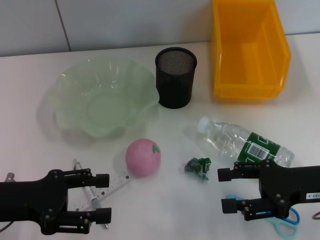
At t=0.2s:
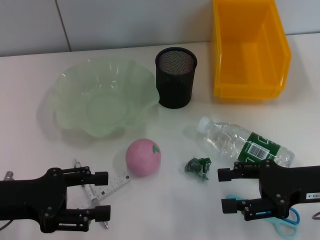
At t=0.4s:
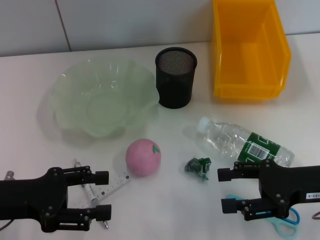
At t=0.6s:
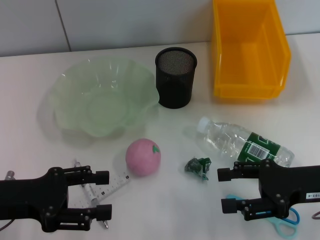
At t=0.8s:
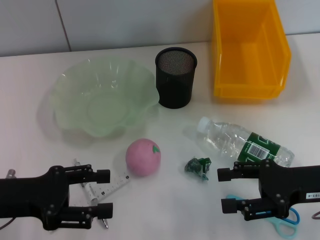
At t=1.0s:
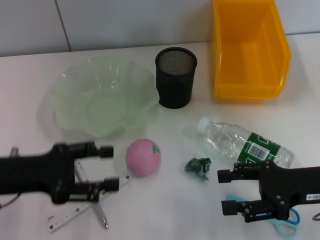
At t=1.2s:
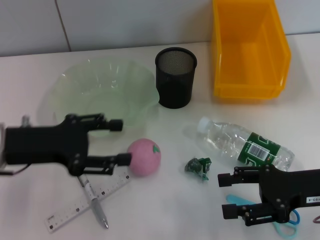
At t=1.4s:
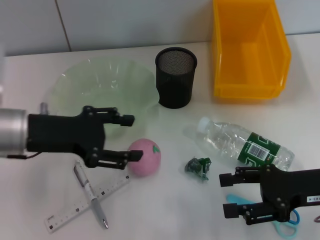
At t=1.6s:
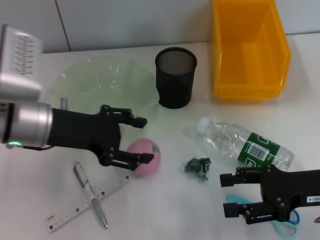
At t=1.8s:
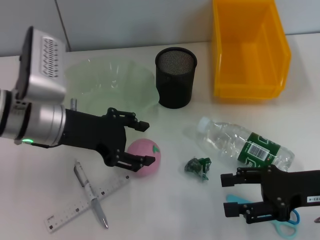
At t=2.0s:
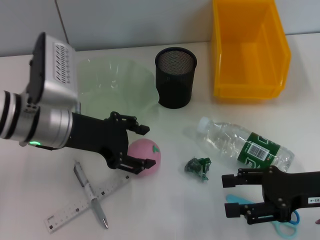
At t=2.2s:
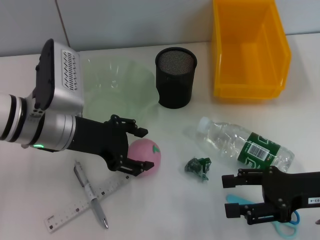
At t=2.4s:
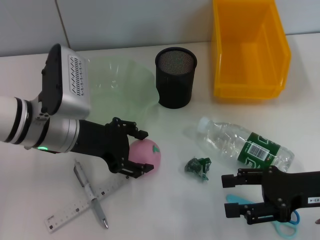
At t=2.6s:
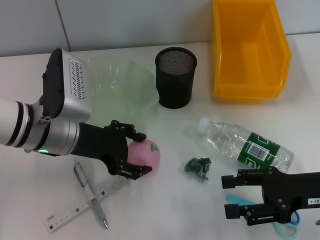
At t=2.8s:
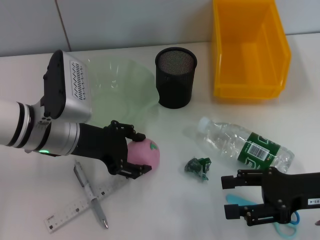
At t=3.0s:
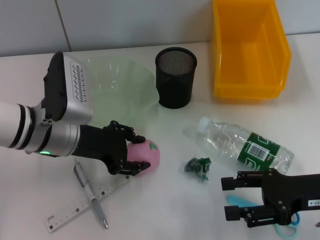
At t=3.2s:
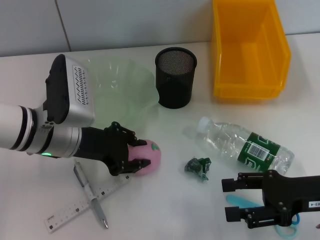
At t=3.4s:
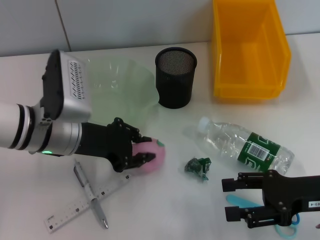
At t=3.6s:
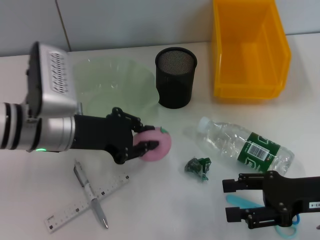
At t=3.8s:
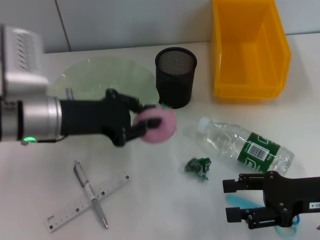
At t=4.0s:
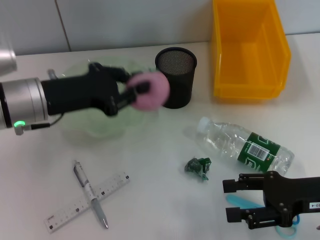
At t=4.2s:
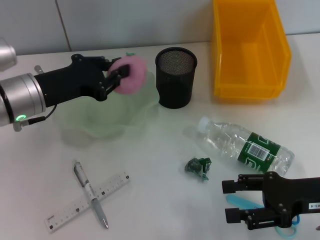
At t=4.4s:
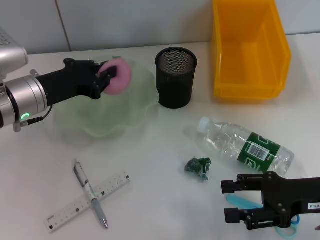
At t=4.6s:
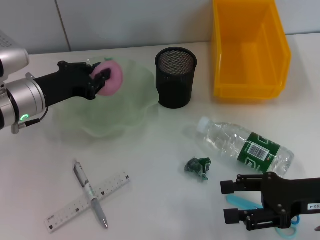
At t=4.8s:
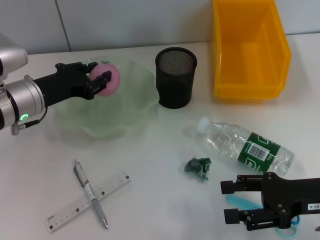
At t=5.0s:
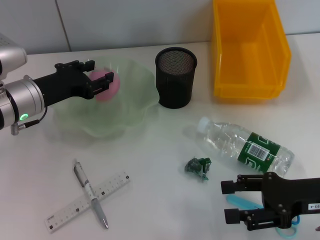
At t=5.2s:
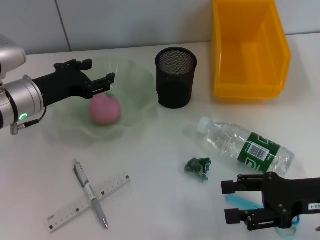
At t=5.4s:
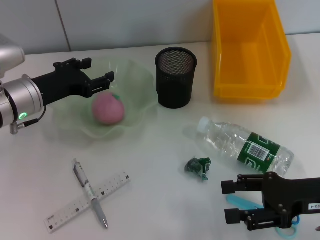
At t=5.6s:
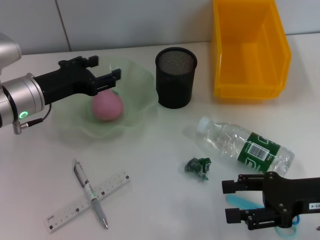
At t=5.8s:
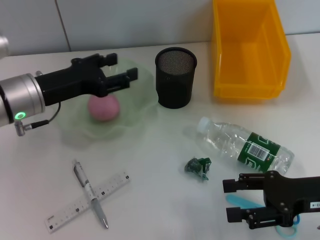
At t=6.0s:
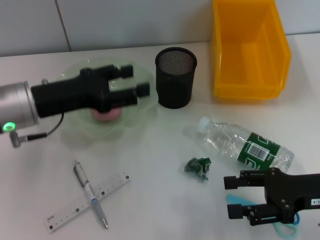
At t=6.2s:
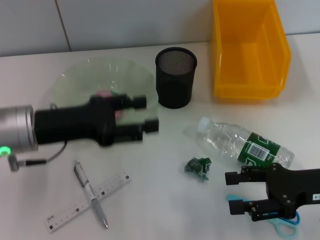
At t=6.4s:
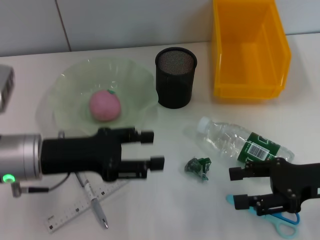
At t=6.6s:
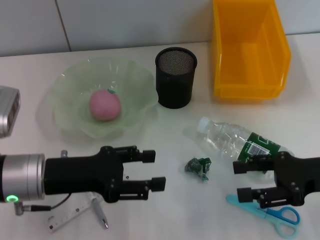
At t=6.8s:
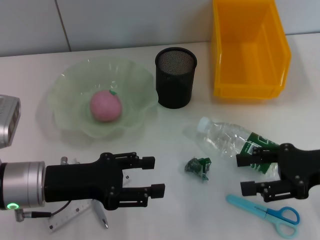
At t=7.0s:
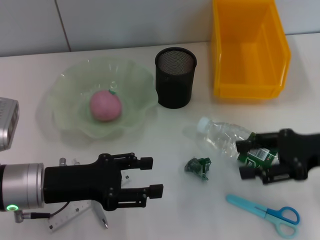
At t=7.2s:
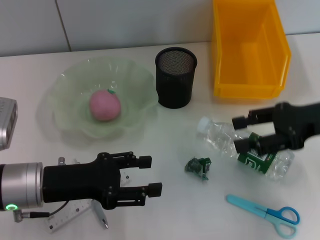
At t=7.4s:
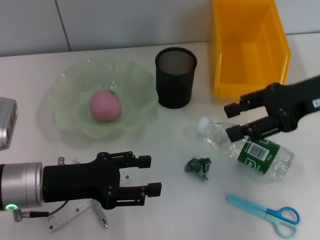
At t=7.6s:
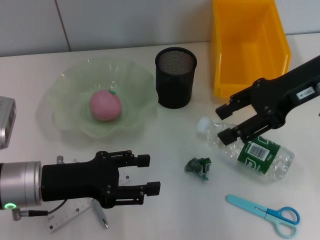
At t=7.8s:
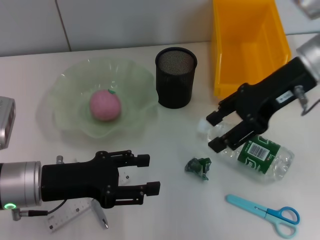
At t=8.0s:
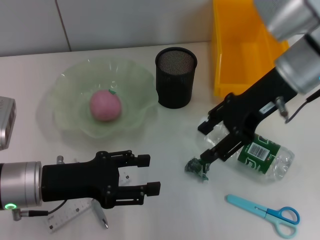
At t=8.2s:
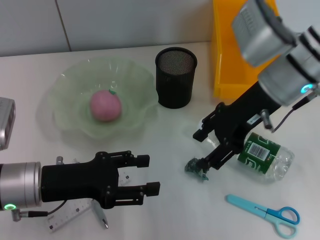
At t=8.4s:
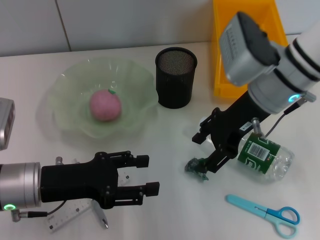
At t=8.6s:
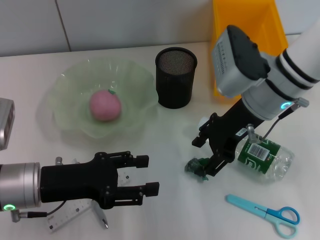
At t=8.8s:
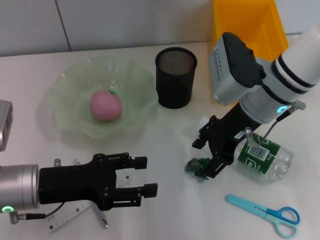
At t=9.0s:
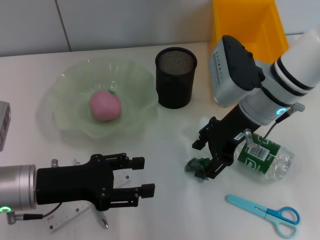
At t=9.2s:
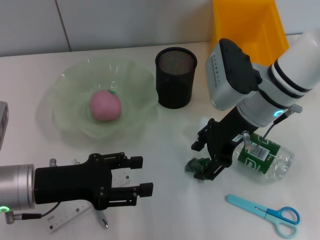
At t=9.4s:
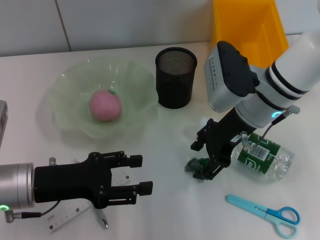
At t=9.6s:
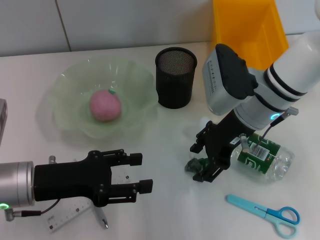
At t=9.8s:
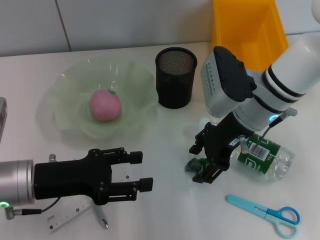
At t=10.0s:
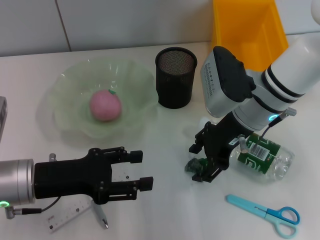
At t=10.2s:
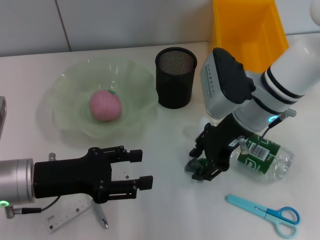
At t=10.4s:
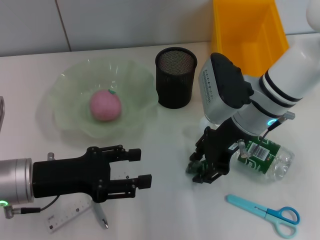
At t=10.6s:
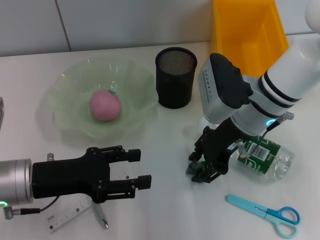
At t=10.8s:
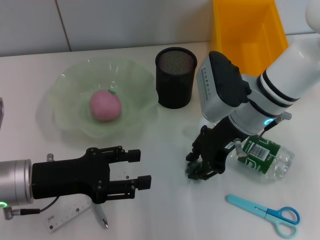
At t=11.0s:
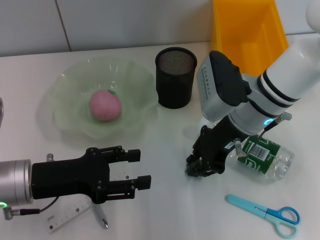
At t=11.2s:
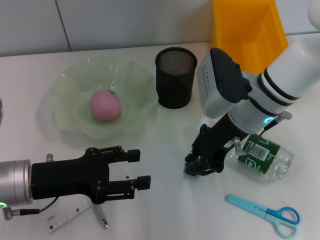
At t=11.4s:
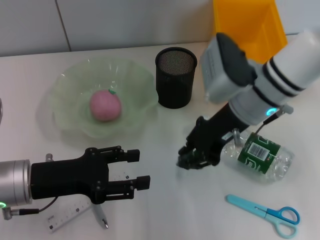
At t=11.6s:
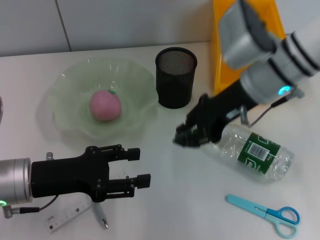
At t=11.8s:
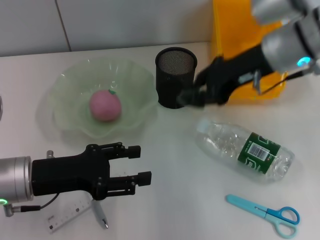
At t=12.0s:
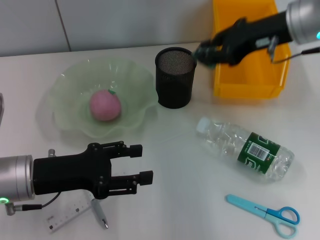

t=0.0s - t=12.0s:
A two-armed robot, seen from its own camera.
Step, t=0.0s - t=3.0s: Grab the peach with the left hand.
Step, t=3.4s - t=5.4s: Place the peach into the fruit bowl with the left hand.
Step, t=5.6s - t=11.0s: Grab the plastic with the right hand.
t=0.0s - t=1.6s: The left gripper heads to the right and forward, covering some 10 cm.
t=1.6s - t=3.0s: The grippers stay close to where they were, moving slightly.
t=3.0s - t=4.4s: The left gripper ends up roughly 5 cm from where it was, and closes.
t=4.4s - t=6.0s: The left gripper opens its fingers.
t=6.0s - t=7.6s: The right gripper is displaced upward and forward by approximately 20 cm, while the left gripper goes about 10 cm backward and downward.
t=7.6s - t=9.0s: The right gripper is displaced to the left and downward by roughly 10 cm.
t=9.0s - t=10.4s: The grippers move only a little.
t=10.4s - t=12.0s: The right gripper moves upward and to the right, roughly 15 cm, and closes its fingers.

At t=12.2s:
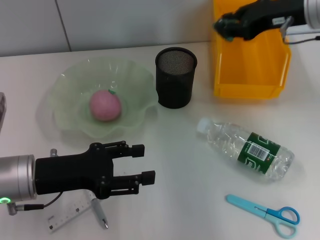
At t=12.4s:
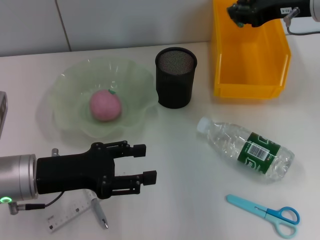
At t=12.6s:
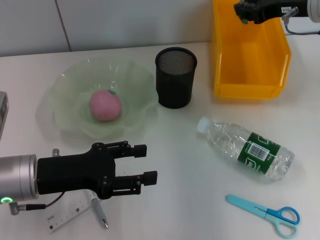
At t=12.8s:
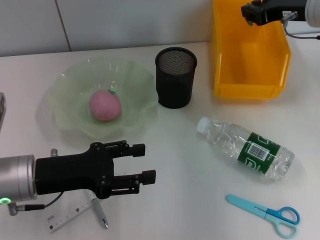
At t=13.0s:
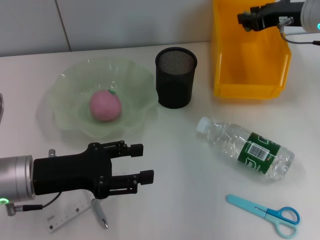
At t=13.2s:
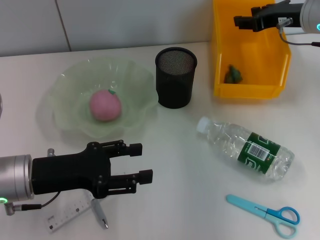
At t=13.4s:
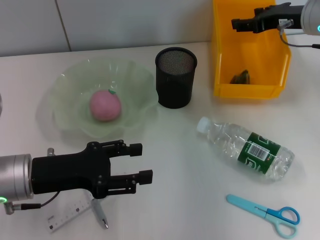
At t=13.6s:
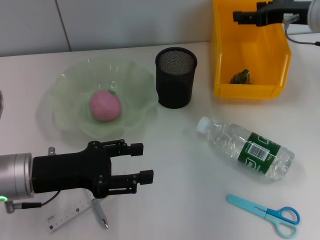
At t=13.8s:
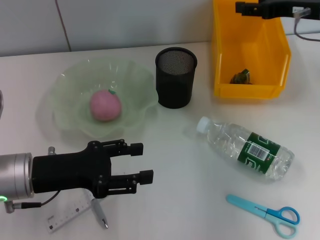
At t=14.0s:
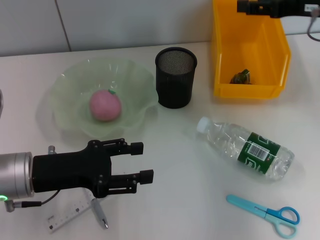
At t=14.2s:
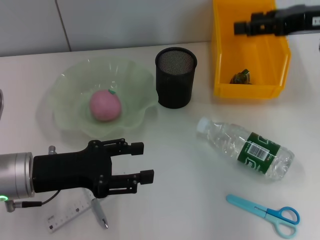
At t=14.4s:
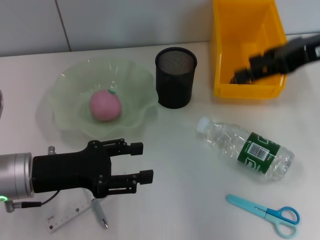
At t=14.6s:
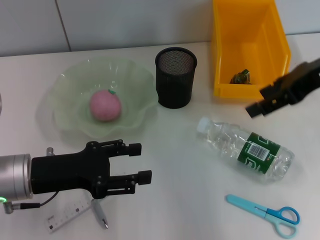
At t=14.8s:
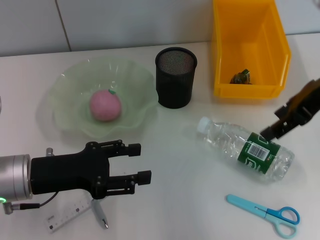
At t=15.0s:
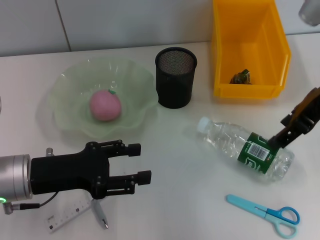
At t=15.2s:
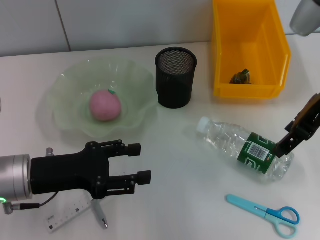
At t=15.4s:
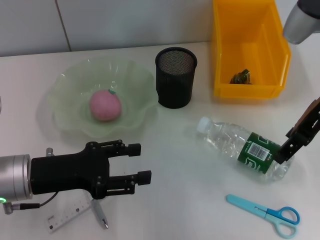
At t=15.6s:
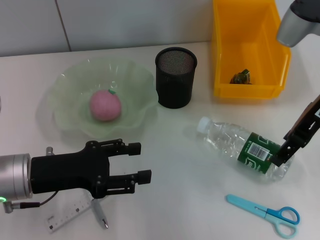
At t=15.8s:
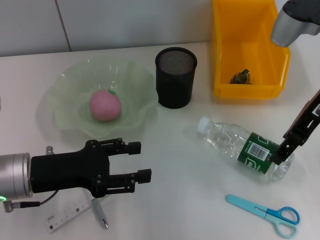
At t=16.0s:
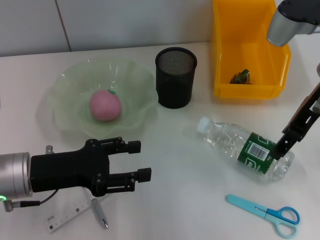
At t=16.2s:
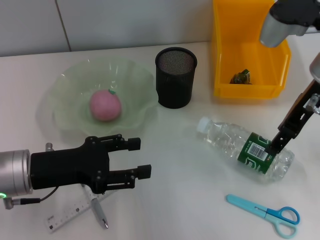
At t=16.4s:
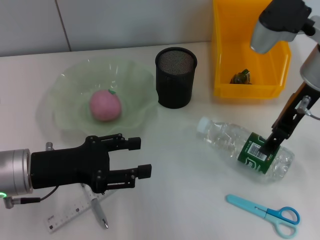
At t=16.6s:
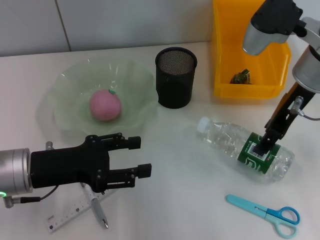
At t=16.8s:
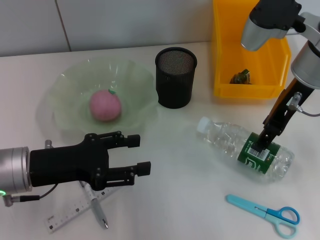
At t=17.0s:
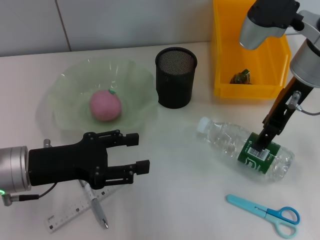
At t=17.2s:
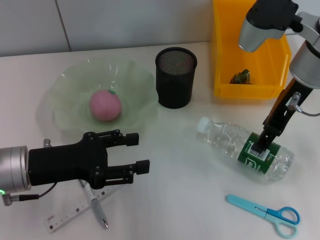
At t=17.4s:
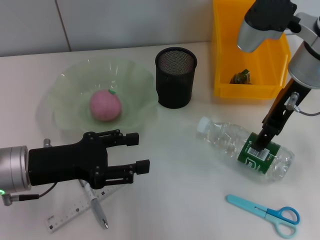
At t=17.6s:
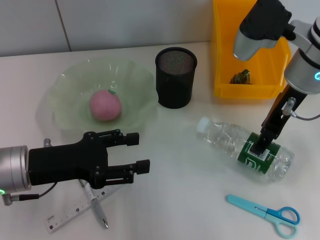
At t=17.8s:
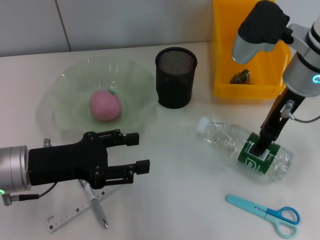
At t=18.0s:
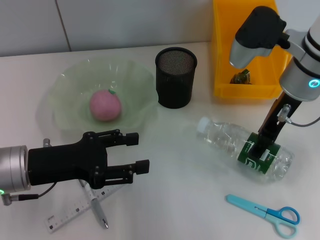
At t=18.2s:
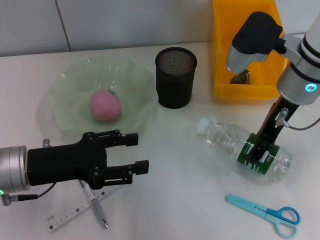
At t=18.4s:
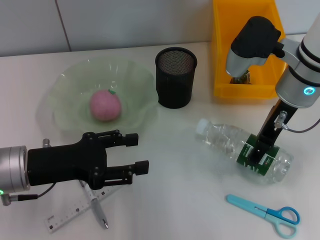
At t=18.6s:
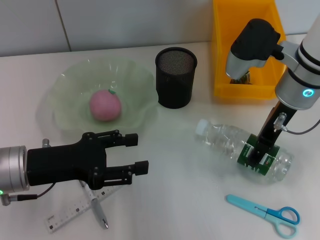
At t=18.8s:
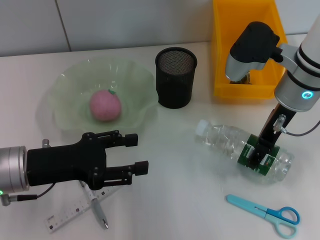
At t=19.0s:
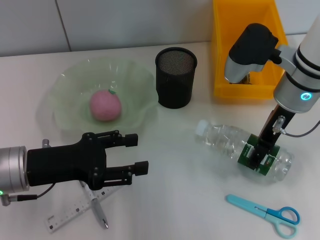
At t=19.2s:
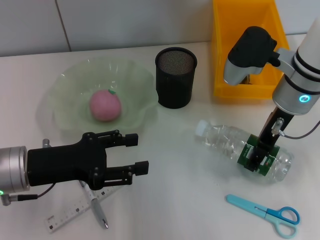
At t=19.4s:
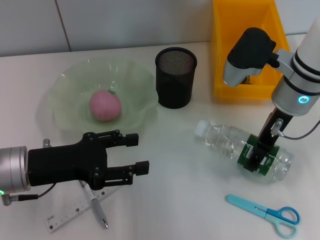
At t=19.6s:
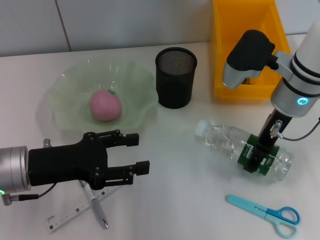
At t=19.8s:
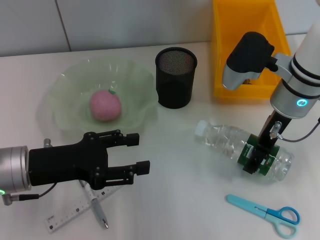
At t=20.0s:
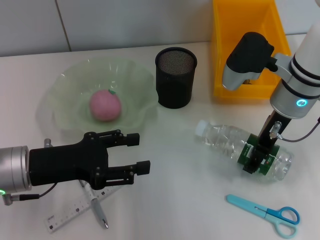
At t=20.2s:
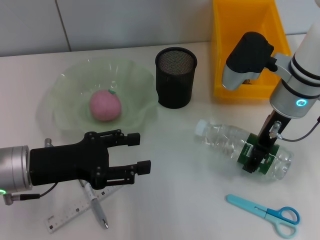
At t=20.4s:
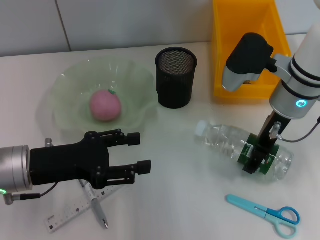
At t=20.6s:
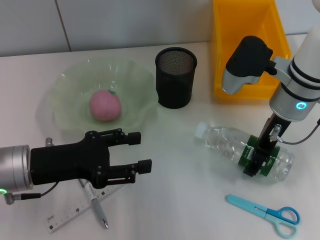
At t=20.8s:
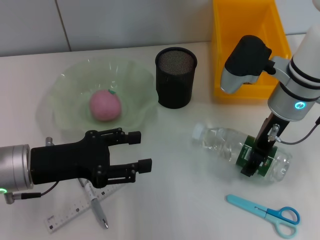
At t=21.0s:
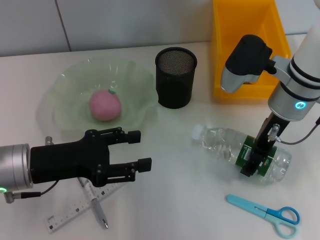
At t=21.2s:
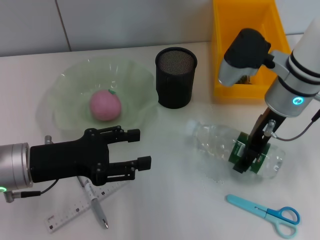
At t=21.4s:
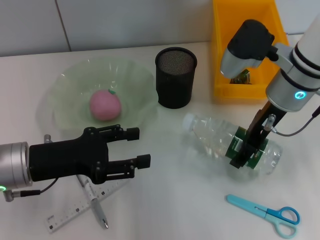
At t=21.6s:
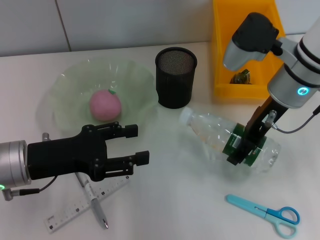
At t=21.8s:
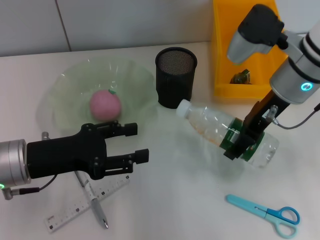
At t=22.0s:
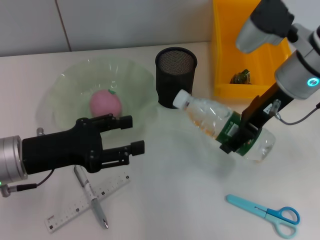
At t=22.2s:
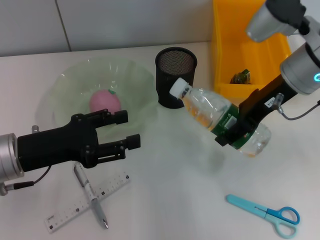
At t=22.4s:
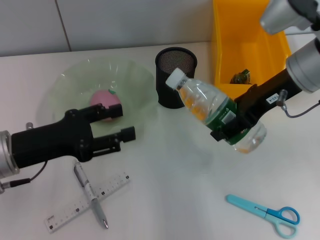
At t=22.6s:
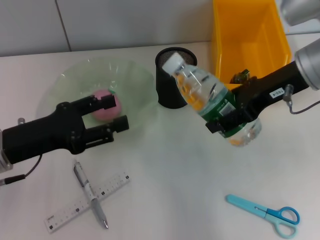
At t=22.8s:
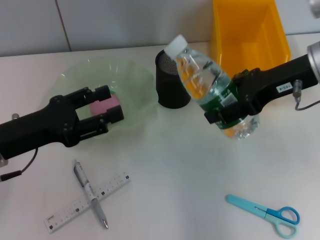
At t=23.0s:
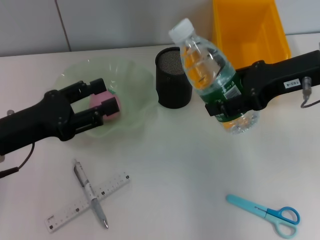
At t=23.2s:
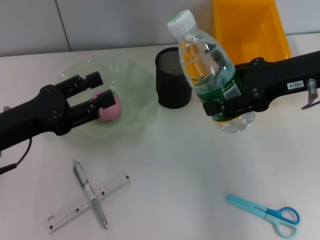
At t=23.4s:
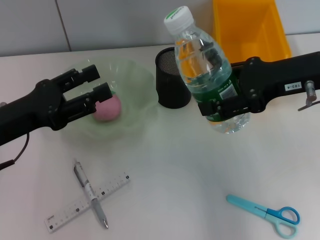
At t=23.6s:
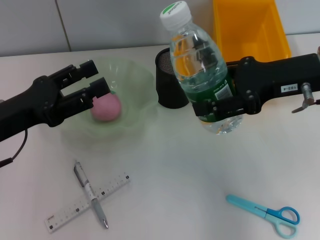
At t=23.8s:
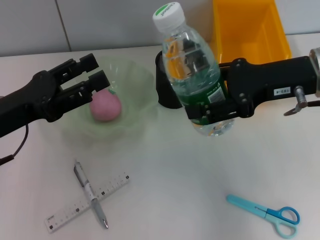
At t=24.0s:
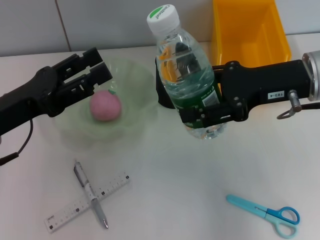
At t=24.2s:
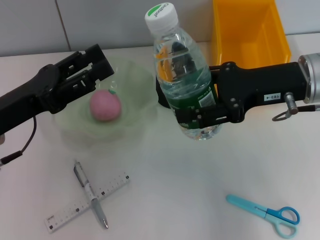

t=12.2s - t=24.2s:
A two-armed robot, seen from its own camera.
Step, t=12.2s - t=13.4s: Place the plastic into the trash can with the right hand.
Step, t=13.6s - t=20.4s: Grab the water bottle with the right hand.
t=12.2s - t=13.8s: The right gripper opens.
t=13.8s - t=15.2s: The right gripper travels backward and to the left by approximately 10 cm.
t=15.2s - t=16.6s: The right gripper changes place by approximately 5 cm.
t=16.6s - t=19.8s: The grippers stay close to where they were, moving slightly.
t=19.8s - t=21.2s: Both grippers stay about where they are.
t=21.2s - t=22.6s: The right gripper goes some 5 cm upward.
